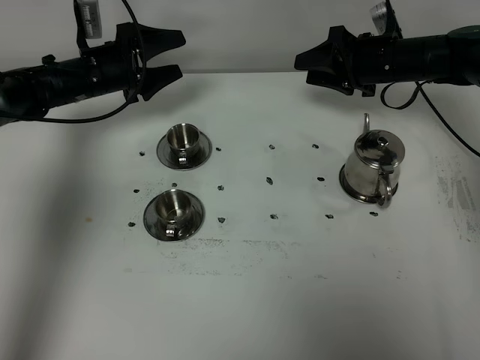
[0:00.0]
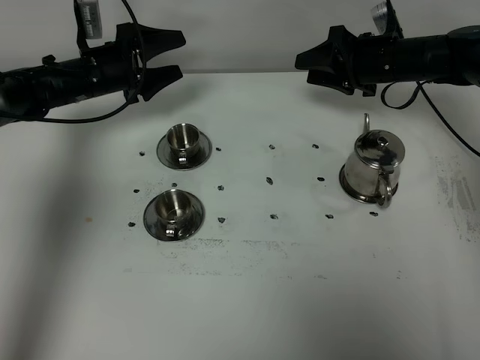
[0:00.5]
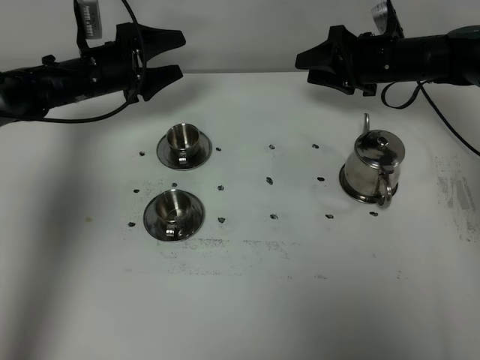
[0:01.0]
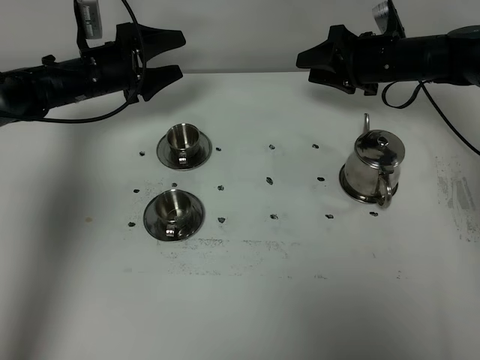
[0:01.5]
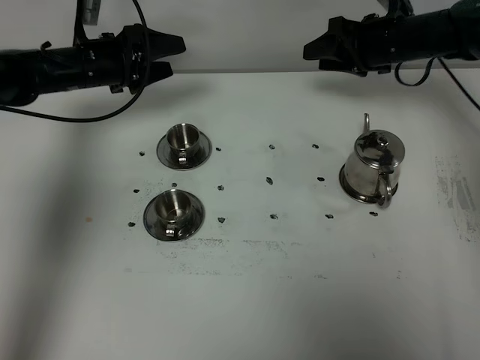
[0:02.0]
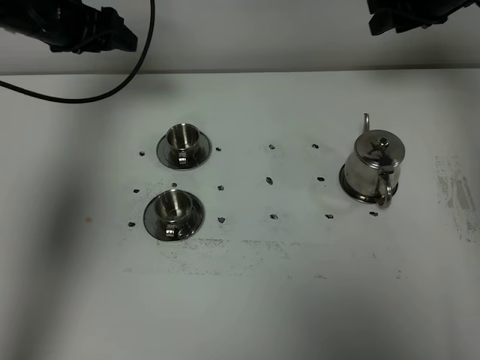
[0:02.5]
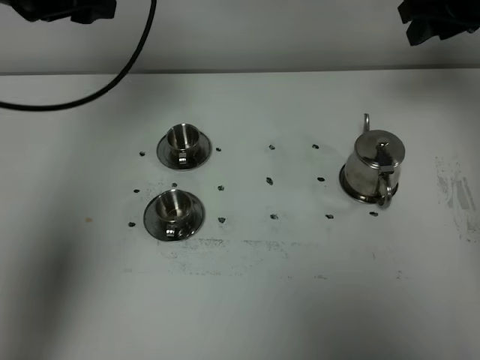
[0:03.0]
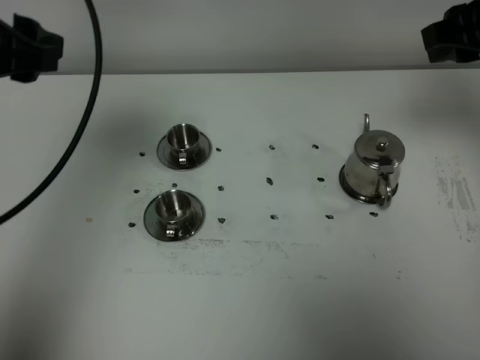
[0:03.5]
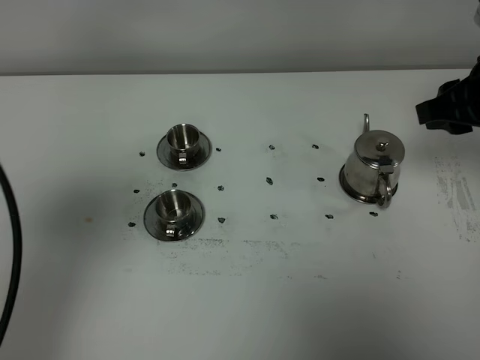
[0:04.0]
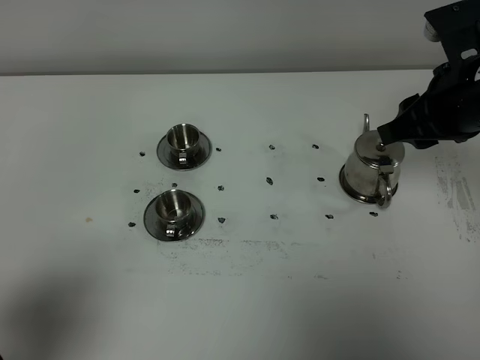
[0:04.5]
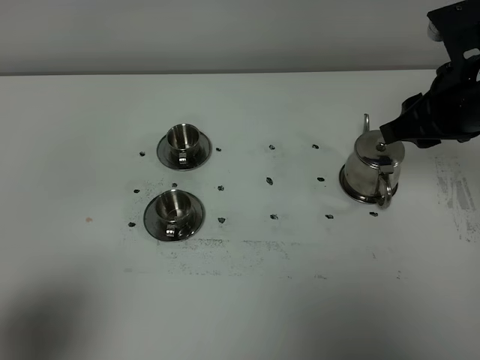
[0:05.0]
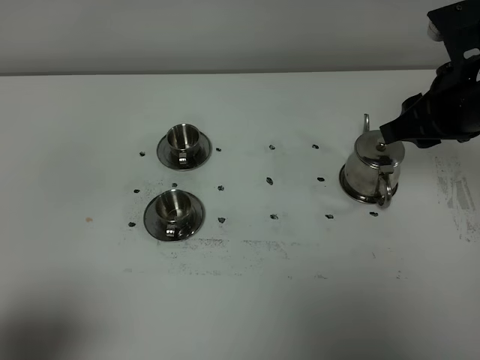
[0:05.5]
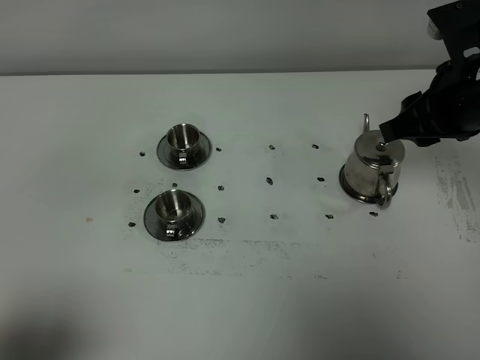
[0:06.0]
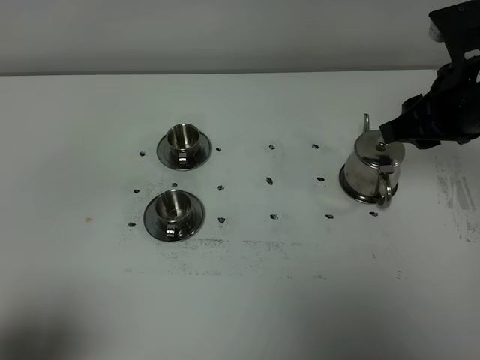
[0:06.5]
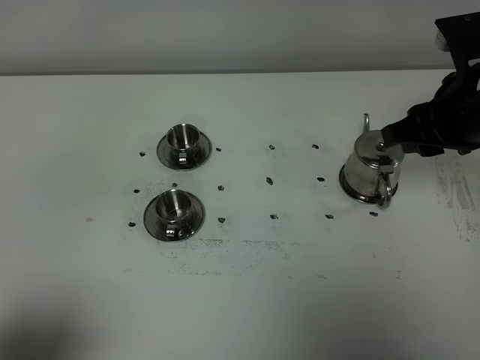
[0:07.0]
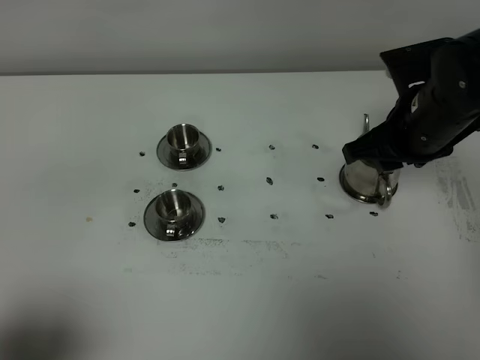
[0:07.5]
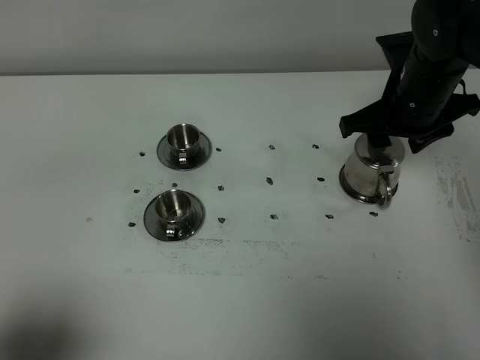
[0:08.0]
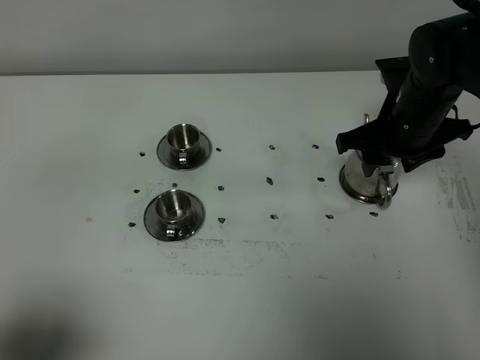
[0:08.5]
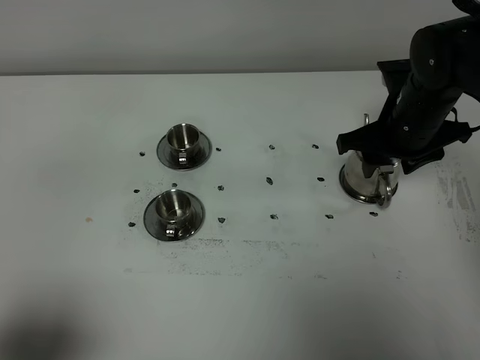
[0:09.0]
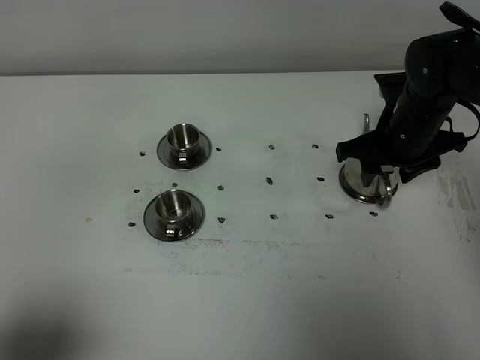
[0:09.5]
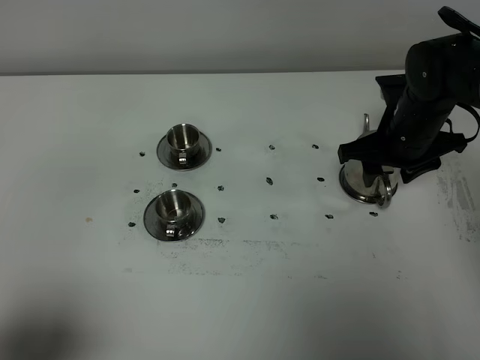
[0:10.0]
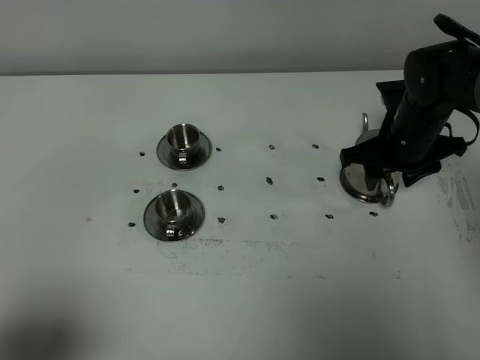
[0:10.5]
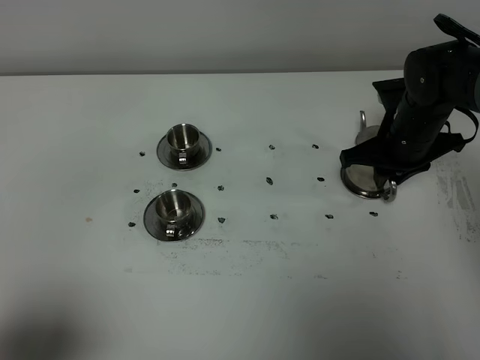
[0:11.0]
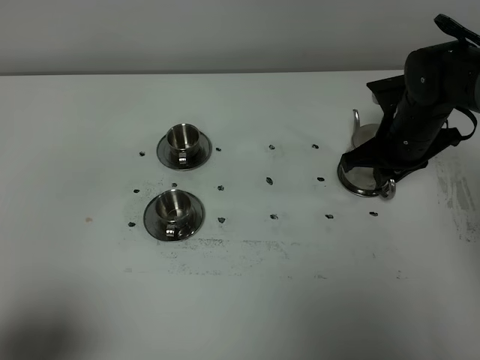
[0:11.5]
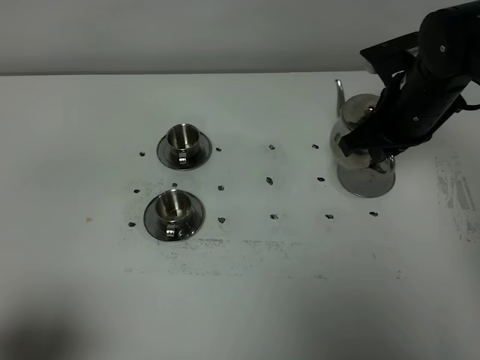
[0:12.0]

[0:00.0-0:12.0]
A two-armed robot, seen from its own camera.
Task of the whole recording: grasp the stainless steel teapot and pour the tea into the two stainless steel teacups one by one, put the stainless steel teapot back in its original place.
Step, 0:00.0 to 0:11.5: Pick up the teapot with the right gripper.
0:00.0 to 0:02.0: There are only small adjustments of the grippers.
0:02.0 to 0:04.0: The left gripper goes about 40 cm backward and upward, and closes up. Meanwhile the right gripper is displaced backward and upward by approximately 25 cm.
0:04.0 to 0:06.0: The left gripper heads backward and downward, covering roughly 15 cm.
0:06.0 to 0:08.0: The right gripper moves forward and downward, some 10 cm.
0:08.0 to 0:10.0: The right gripper moves downward, some 5 cm.
0:10.0 to 0:12.0: The right gripper shifts roughly 5 cm upward, and closes its fingers.

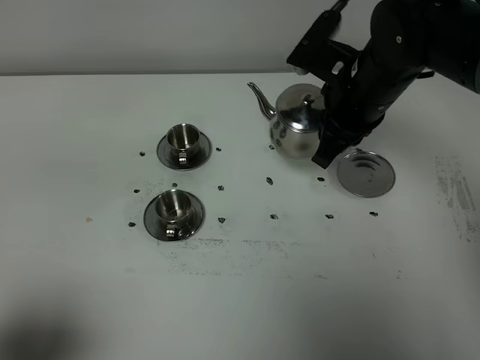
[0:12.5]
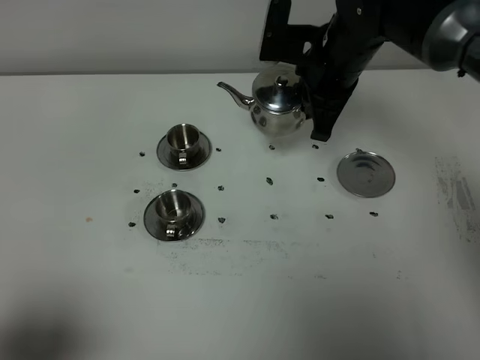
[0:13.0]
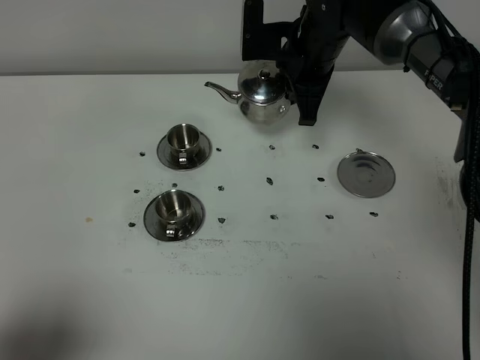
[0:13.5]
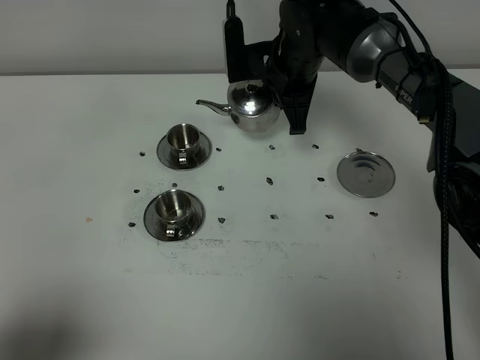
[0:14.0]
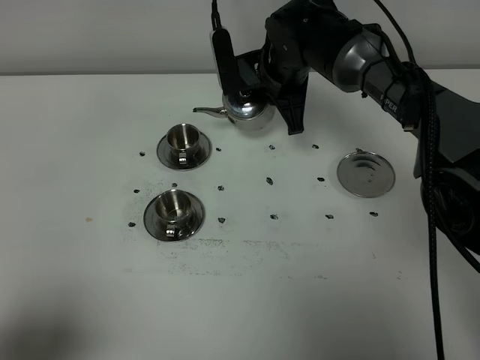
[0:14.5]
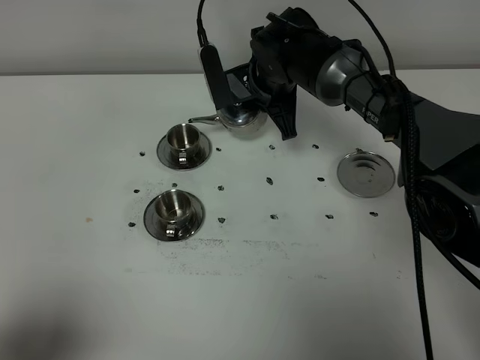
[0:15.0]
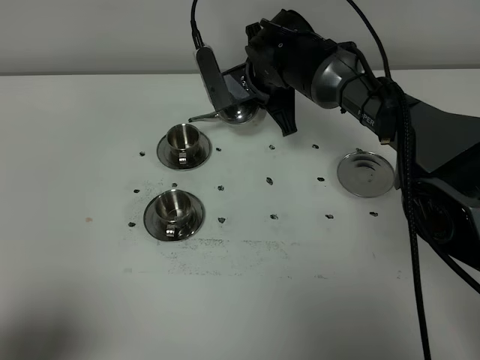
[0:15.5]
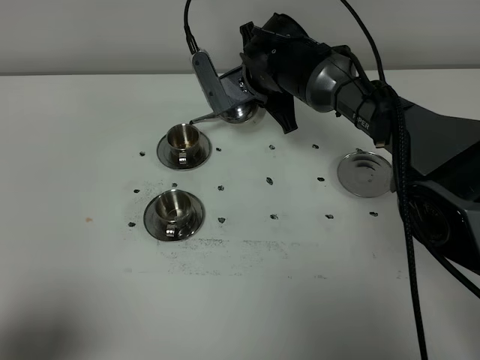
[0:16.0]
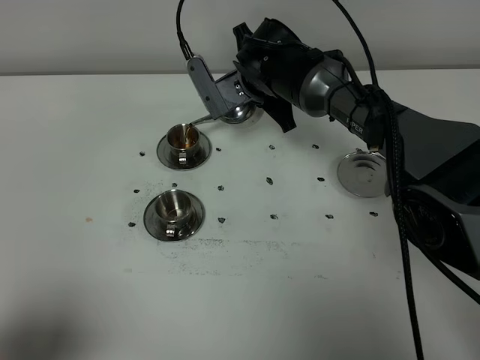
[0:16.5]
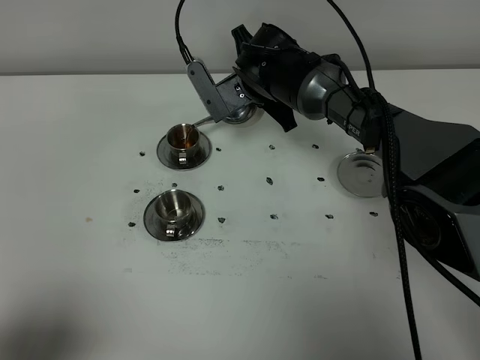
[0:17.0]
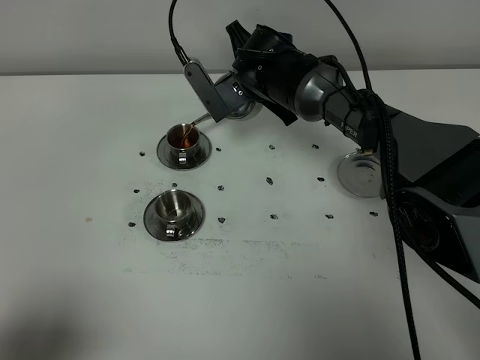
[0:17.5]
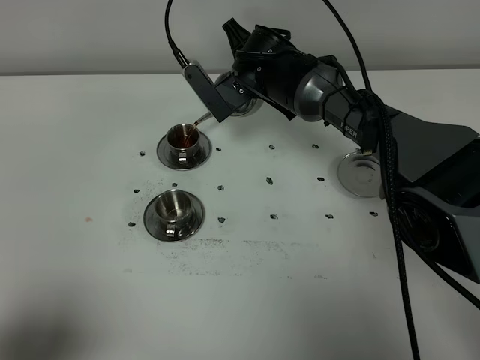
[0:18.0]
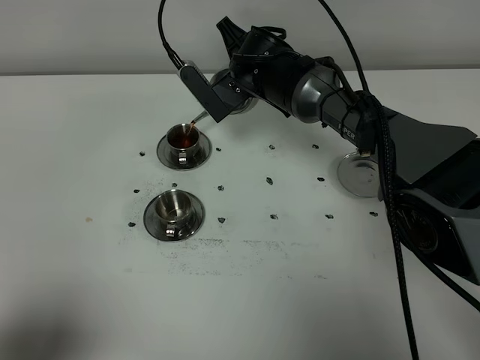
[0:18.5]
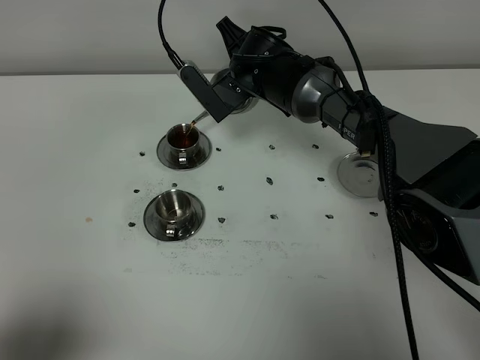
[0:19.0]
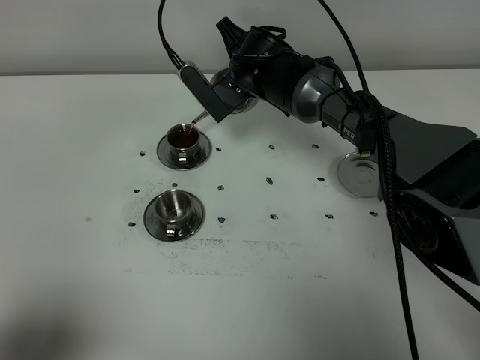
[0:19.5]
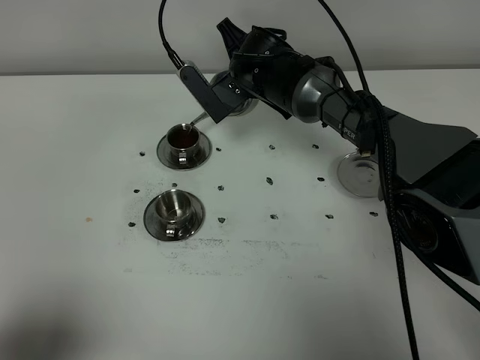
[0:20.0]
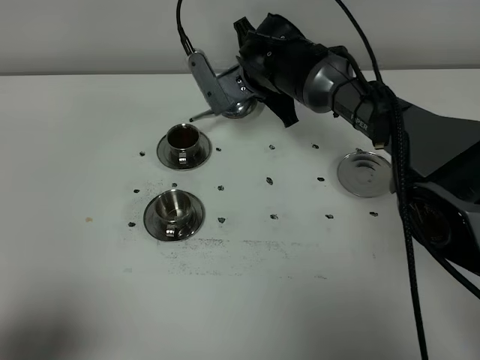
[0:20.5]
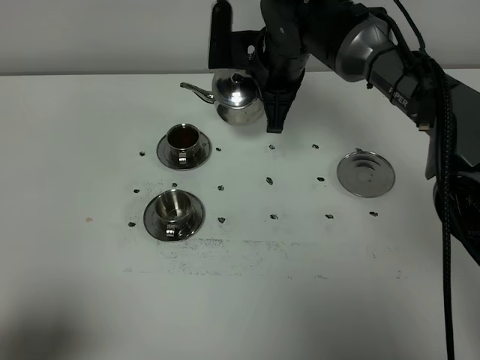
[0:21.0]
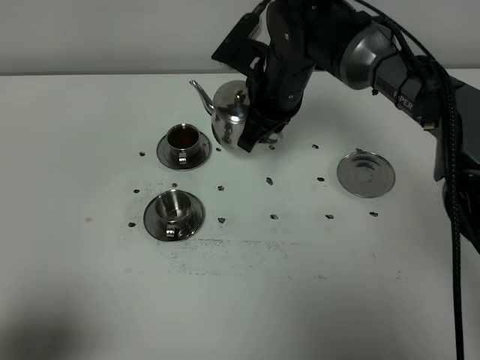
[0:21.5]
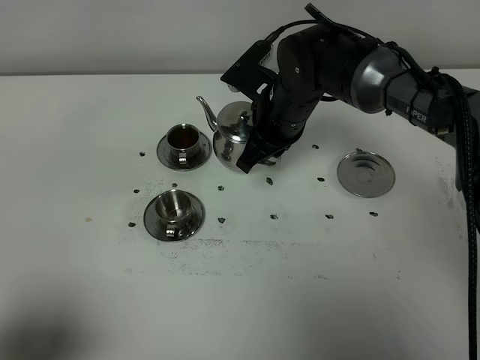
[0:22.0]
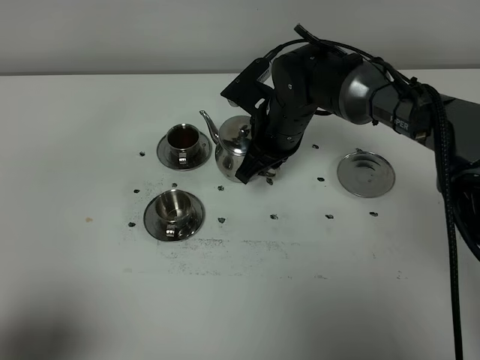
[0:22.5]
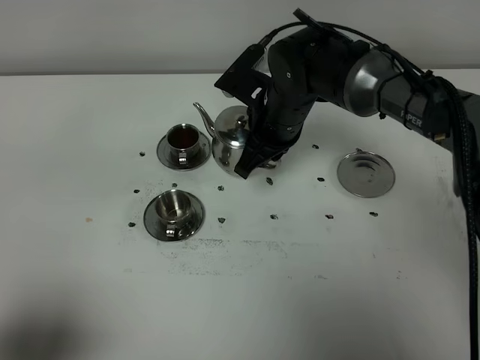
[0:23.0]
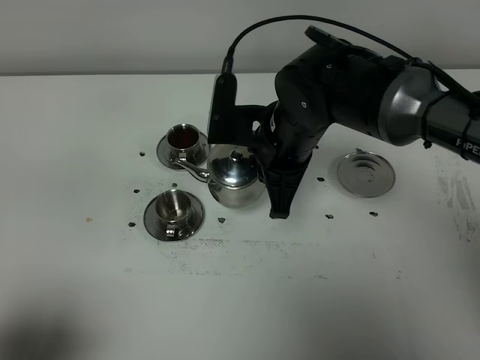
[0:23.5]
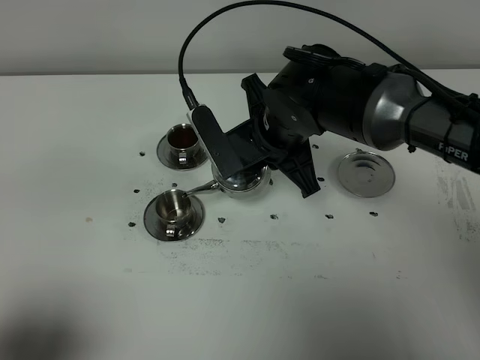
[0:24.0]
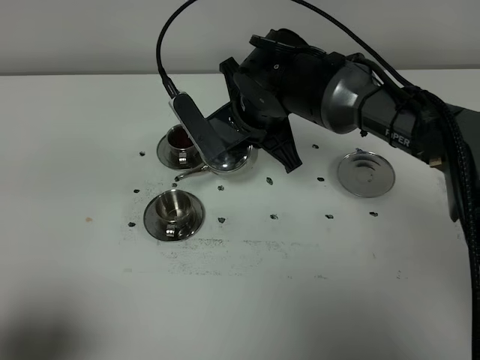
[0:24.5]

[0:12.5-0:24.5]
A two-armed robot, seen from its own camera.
Task of the whole recording: grasp the stainless steel teapot and pour the tea into the two stainless steel teacups one by one, put the stainless steel teapot back in its original place.
Step, 0:12.5 to 0:20.0: Pour tea into the teacup with the right gripper.
0:12.5 to 0:14.5: The right gripper is displaced forward, to the left and downward by roughly 15 cm.
0:14.5 to 0:16.5: The grippers make only small movements.
0:16.5 to 0:20.5: The grippers stay close to where they were, moving slightly.
0:20.5 to 0:22.5: The right gripper moves backward, roughly 5 cm.
0:22.5 to 0:24.5: The right gripper is displaced upward by roughly 5 cm.

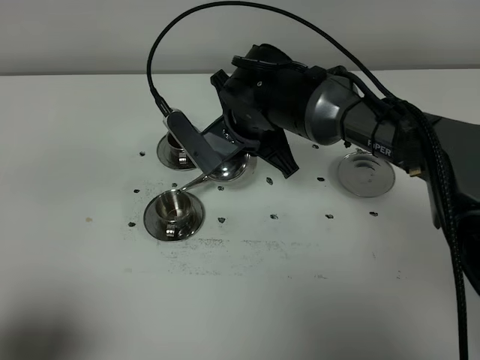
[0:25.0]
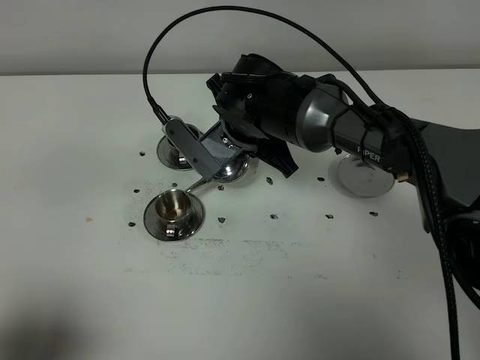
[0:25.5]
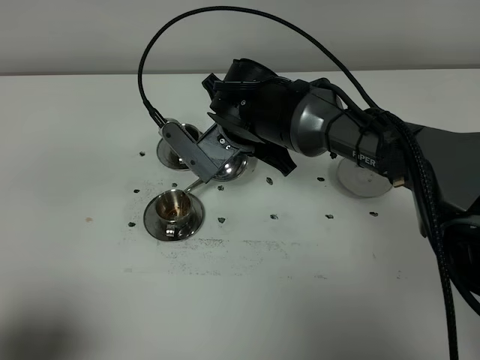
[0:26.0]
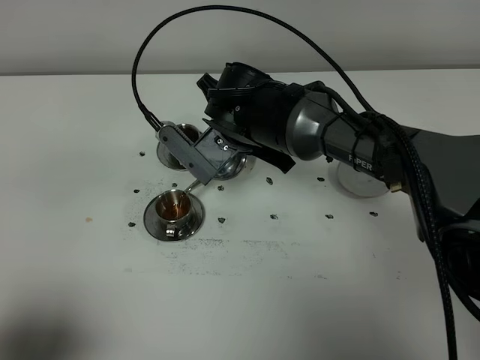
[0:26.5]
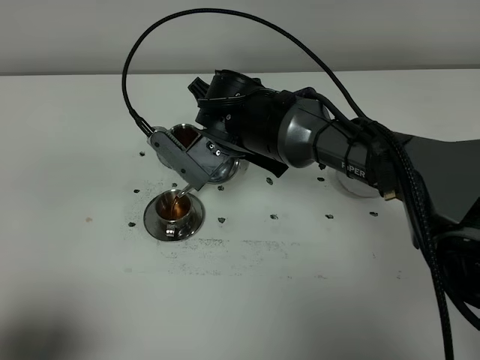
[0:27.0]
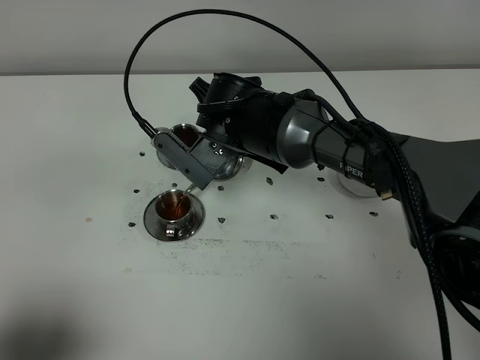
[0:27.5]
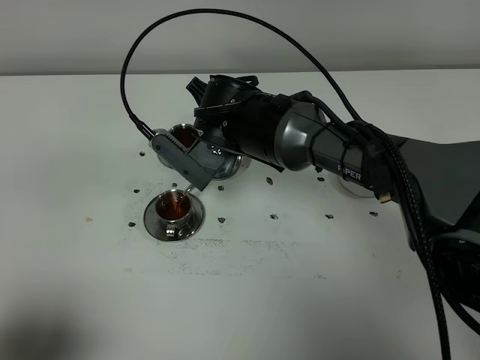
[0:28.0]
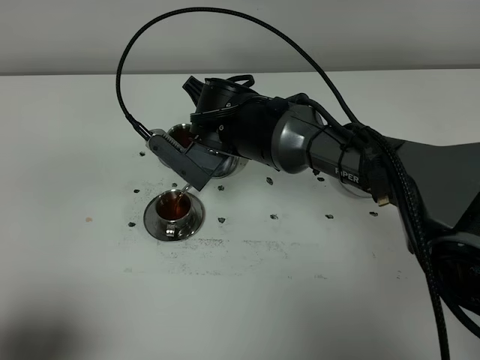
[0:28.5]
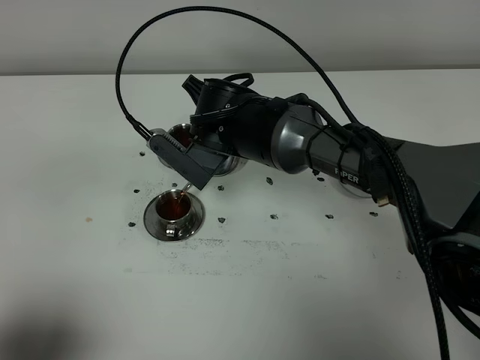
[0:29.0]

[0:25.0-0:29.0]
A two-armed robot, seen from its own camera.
Task of the whole recording: grasp the stainless steel teapot and pour the tea into the two stainless steel teacups one by one, put the stainless steel teapot back in its original place.
0:25.0 to 0:29.0: There are only small adjustments of the grippers.
